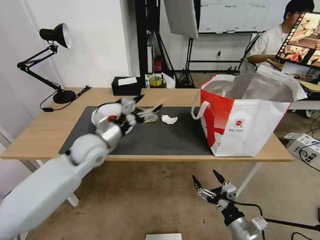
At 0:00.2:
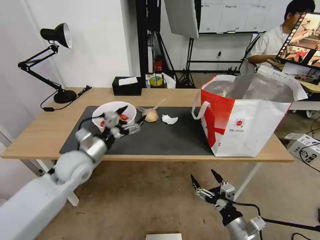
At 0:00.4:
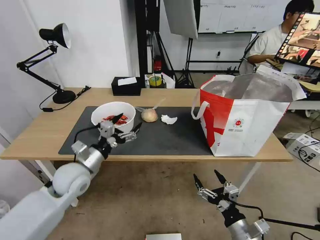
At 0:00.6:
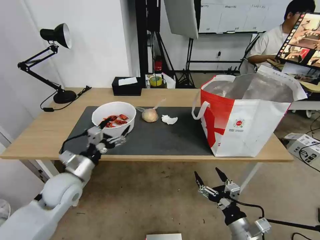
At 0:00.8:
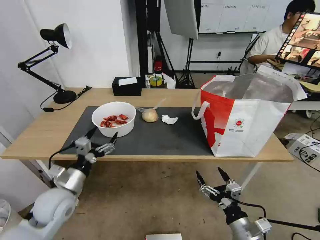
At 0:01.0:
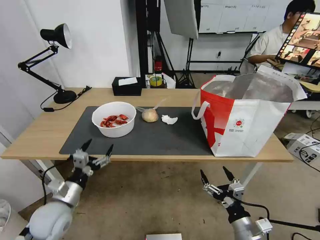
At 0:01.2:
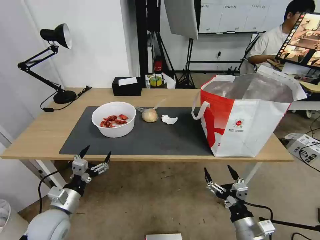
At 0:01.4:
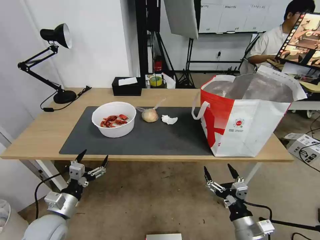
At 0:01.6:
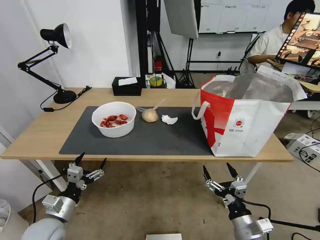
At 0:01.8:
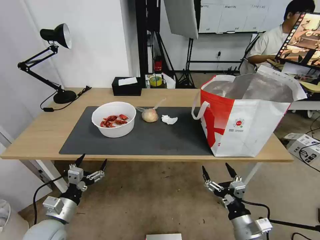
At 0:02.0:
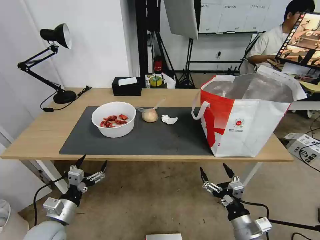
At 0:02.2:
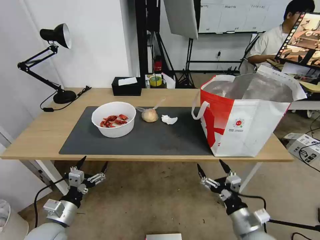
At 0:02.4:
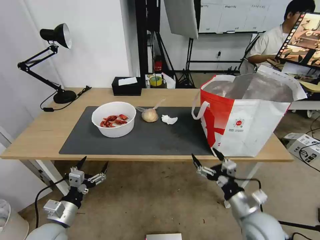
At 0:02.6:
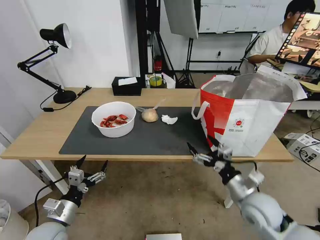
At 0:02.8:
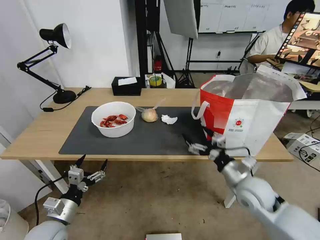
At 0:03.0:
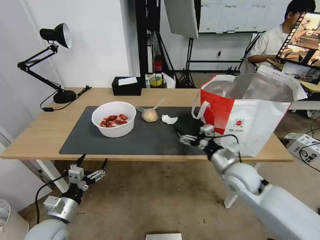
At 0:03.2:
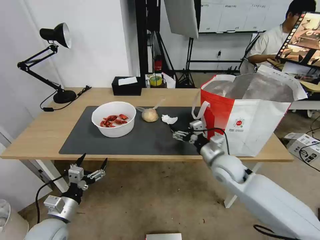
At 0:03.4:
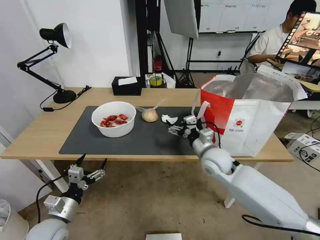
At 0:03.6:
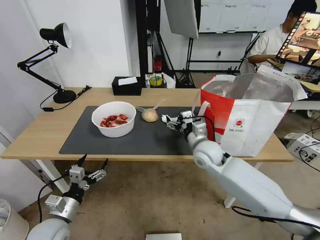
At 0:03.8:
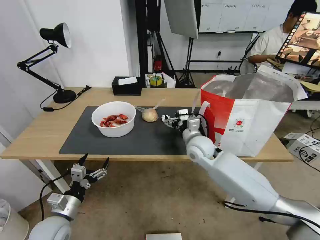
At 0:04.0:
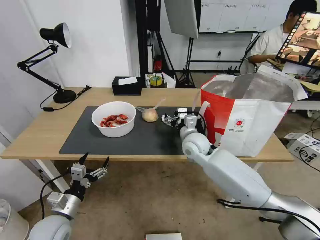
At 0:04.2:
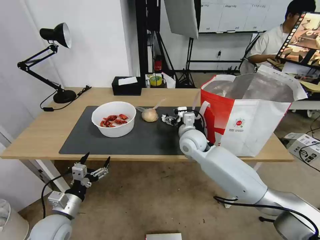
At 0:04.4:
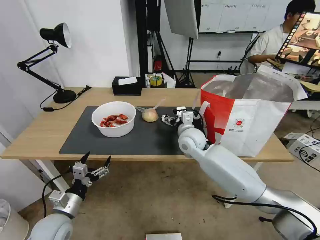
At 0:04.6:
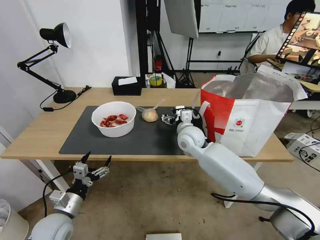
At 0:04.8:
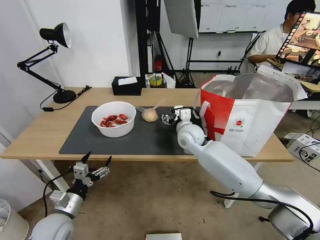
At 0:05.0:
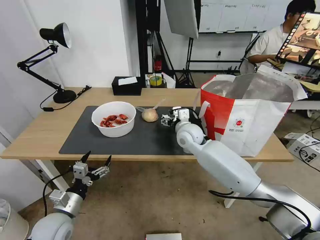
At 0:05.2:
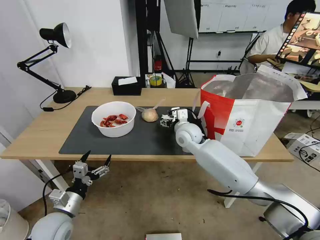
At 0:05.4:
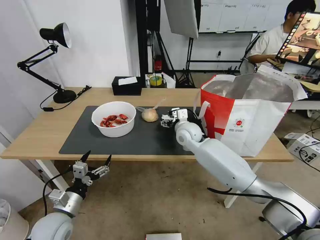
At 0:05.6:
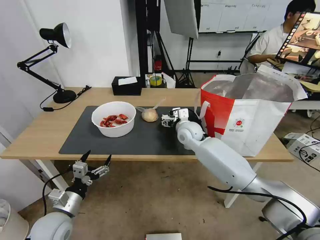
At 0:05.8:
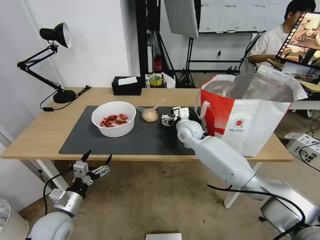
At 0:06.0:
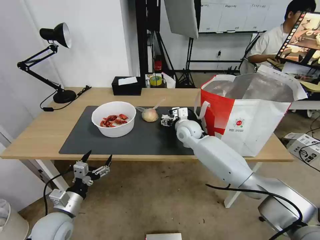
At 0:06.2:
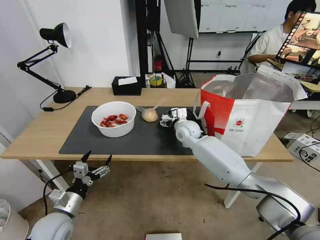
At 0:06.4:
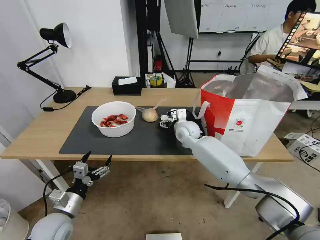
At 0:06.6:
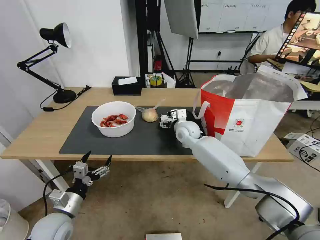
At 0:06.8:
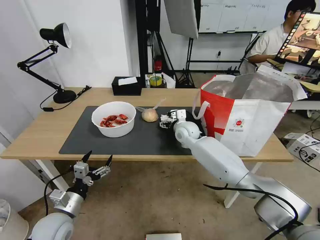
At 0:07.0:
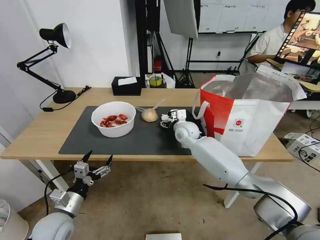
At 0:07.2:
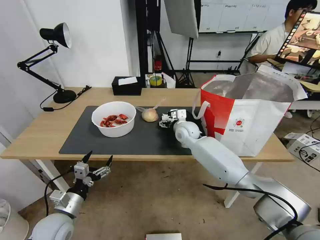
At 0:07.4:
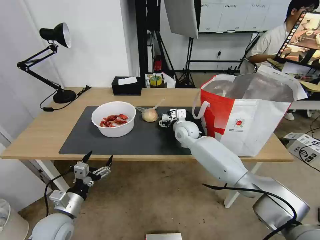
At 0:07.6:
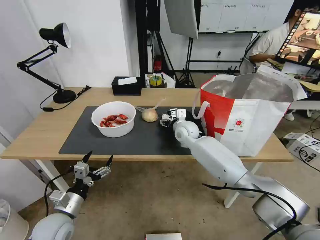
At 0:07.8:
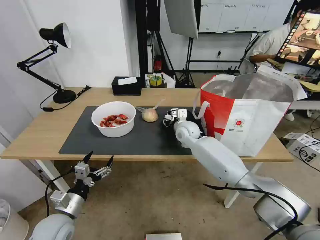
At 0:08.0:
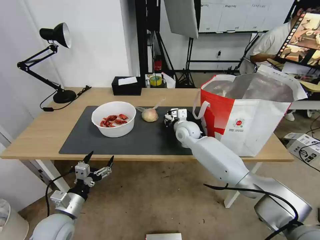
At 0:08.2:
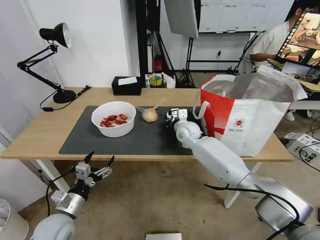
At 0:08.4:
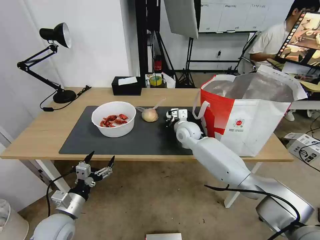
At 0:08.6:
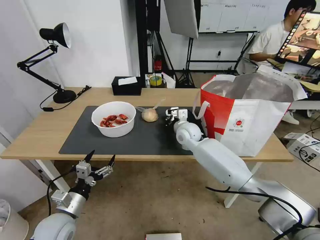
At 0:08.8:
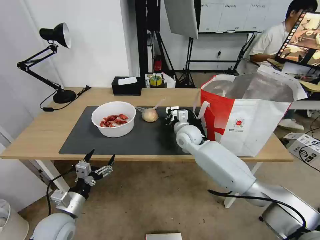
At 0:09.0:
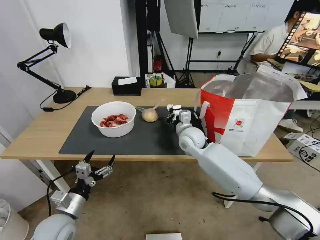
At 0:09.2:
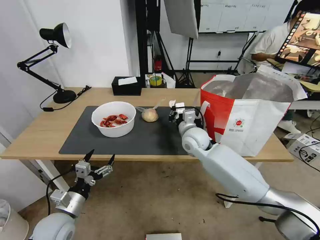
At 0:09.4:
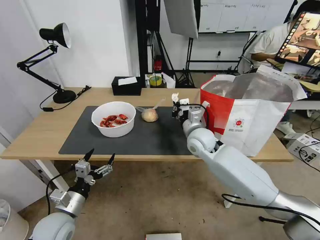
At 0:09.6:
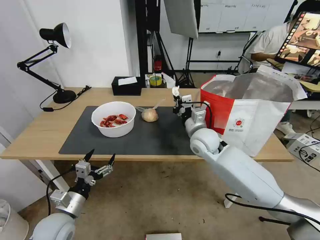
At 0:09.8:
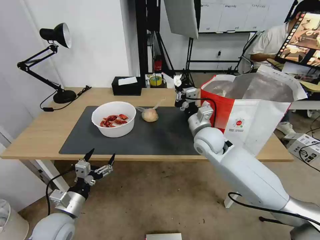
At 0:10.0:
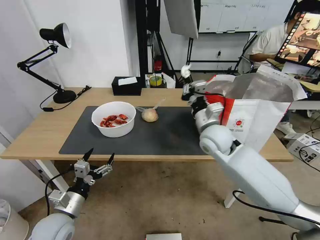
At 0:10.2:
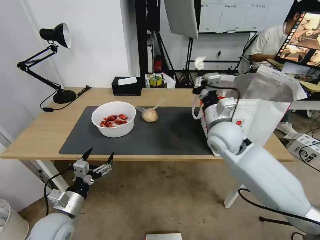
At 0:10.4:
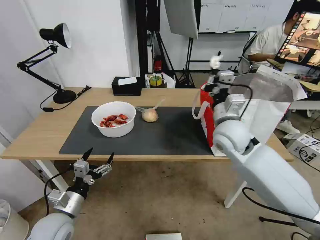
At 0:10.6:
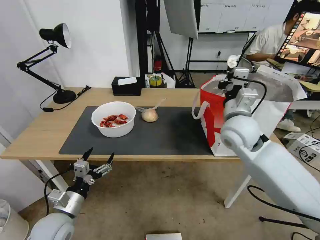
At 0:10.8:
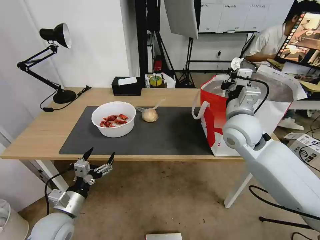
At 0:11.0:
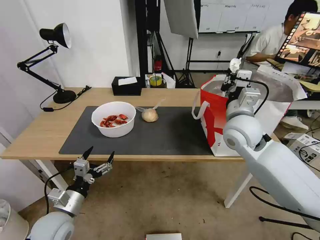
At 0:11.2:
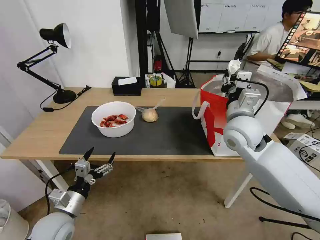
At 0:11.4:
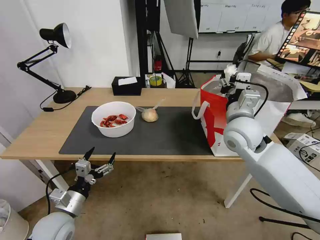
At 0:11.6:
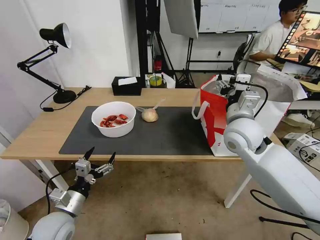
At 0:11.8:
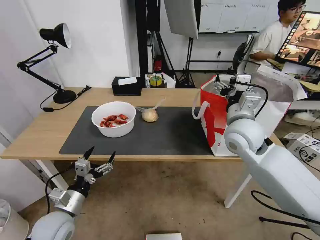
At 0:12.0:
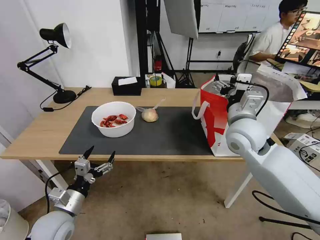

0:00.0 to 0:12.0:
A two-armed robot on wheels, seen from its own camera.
Task of the whole recording: Pick up the trash from the table and place it into the takeout bag.
0:00.0 to 0:01.6: The left gripper shifts roughly 25 cm backward, downward and to the left.
0:01.6 to 0:03.0: The right gripper moves forward and upward, approximately 20 cm.
0:03.0 to 0:04.4: The right gripper moves to the left and forward, some 20 cm.
0:04.4 to 0:06.0: The right gripper goes some 5 cm forward.
0:06.0 to 0:07.6: There are only small adjustments of the grippers.
0:07.6 to 0:09.0: The right gripper moves backward, approximately 5 cm, and closes its fingers.
0:09.0 to 0:10.4: The right gripper travels upward, to the right and backward by about 15 cm.
0:10.4 to 0:12.0: The right gripper opens up.

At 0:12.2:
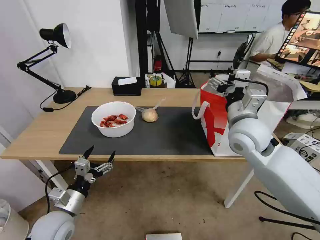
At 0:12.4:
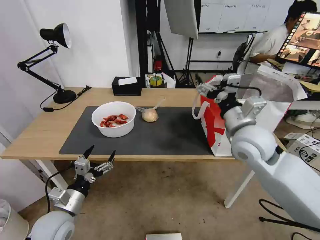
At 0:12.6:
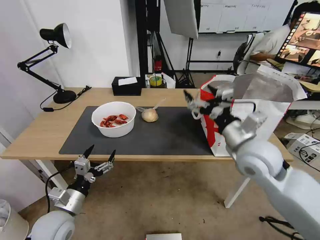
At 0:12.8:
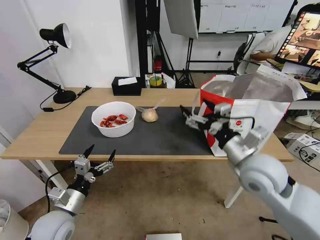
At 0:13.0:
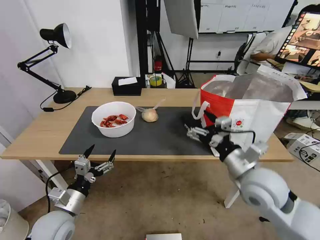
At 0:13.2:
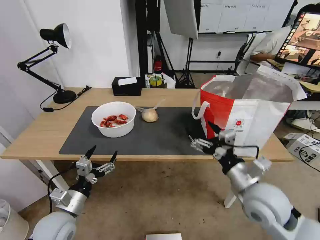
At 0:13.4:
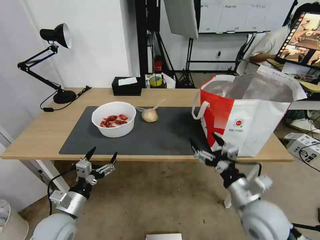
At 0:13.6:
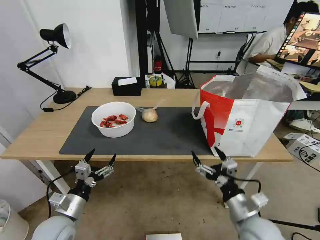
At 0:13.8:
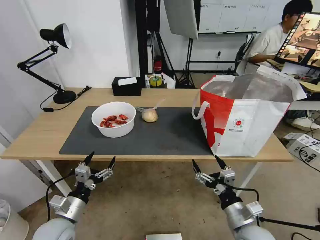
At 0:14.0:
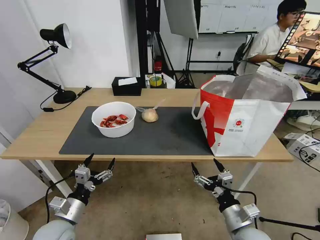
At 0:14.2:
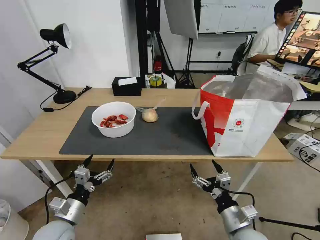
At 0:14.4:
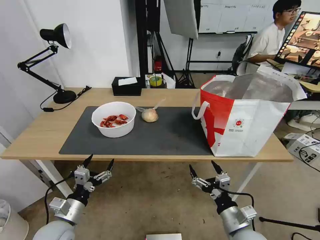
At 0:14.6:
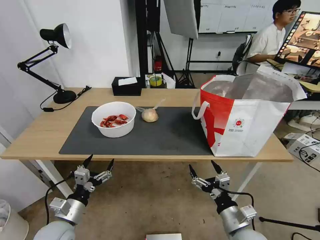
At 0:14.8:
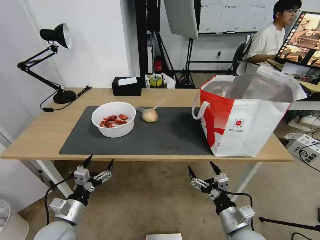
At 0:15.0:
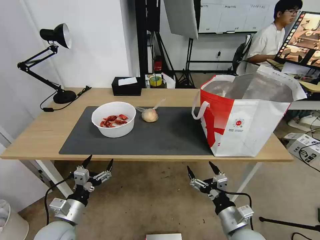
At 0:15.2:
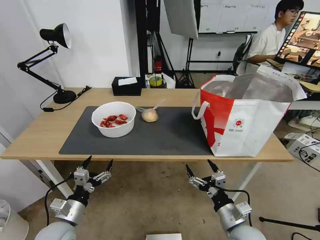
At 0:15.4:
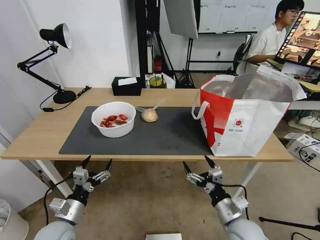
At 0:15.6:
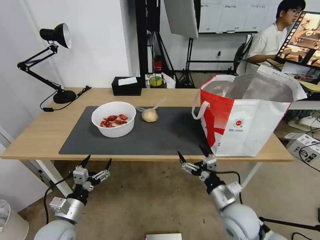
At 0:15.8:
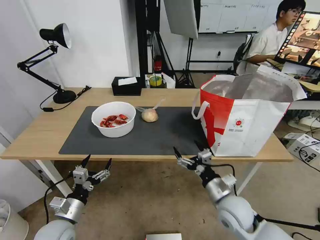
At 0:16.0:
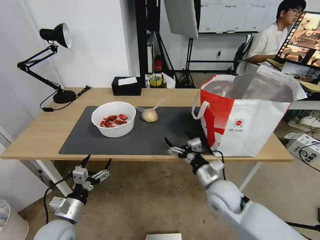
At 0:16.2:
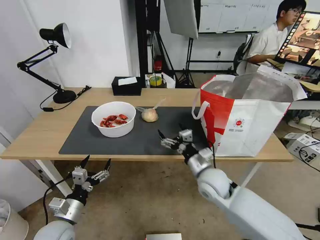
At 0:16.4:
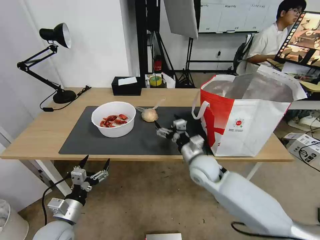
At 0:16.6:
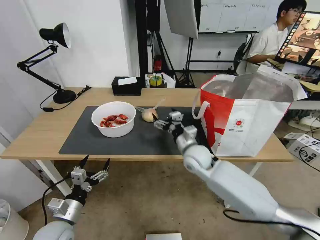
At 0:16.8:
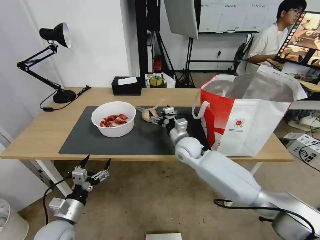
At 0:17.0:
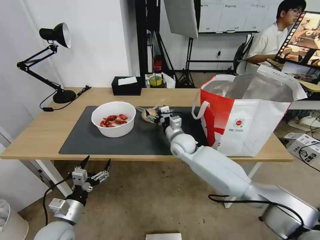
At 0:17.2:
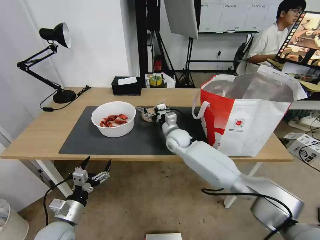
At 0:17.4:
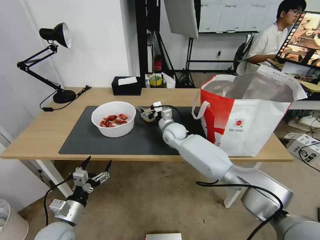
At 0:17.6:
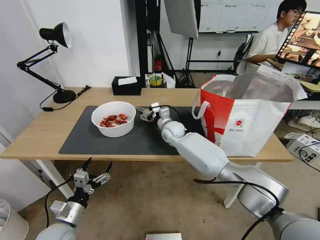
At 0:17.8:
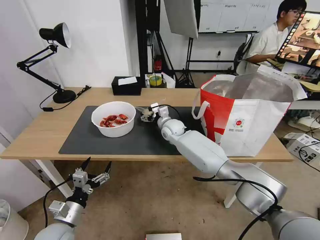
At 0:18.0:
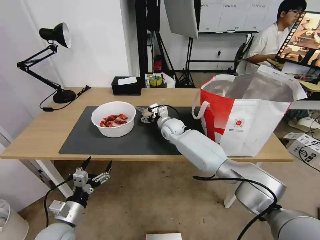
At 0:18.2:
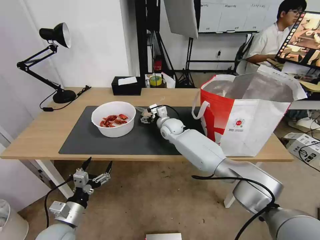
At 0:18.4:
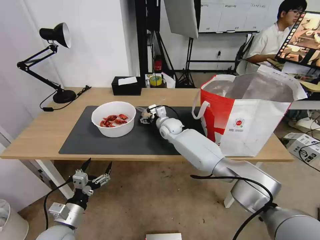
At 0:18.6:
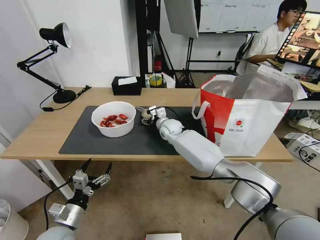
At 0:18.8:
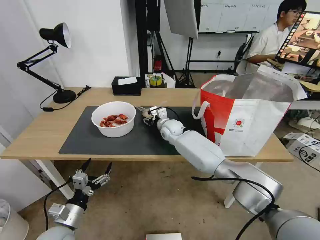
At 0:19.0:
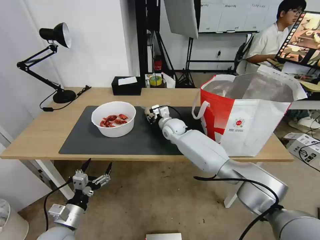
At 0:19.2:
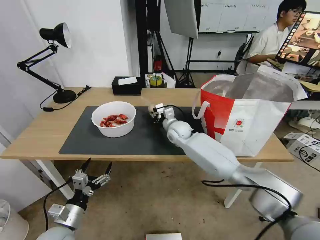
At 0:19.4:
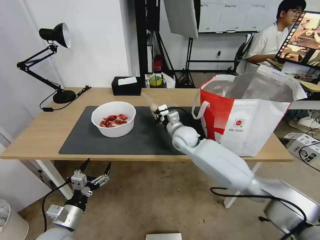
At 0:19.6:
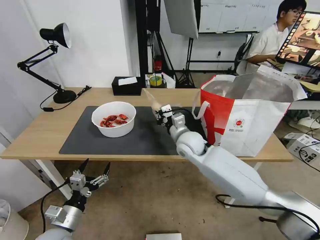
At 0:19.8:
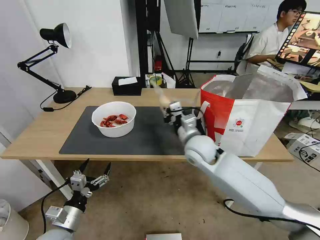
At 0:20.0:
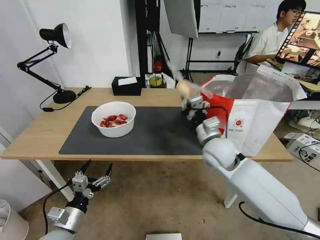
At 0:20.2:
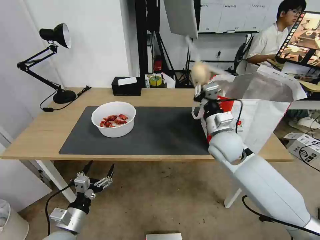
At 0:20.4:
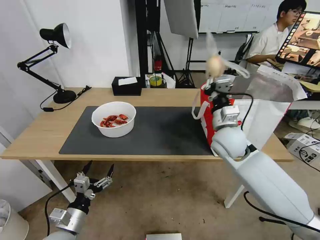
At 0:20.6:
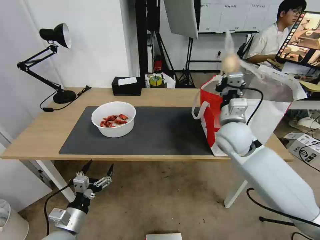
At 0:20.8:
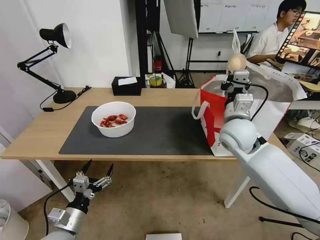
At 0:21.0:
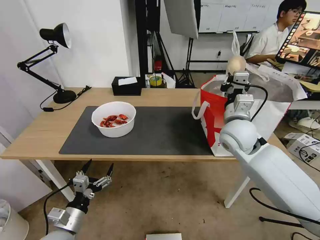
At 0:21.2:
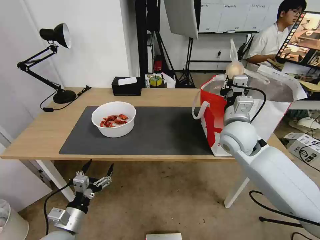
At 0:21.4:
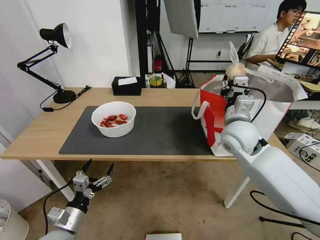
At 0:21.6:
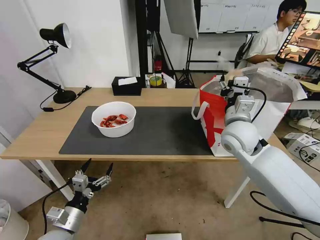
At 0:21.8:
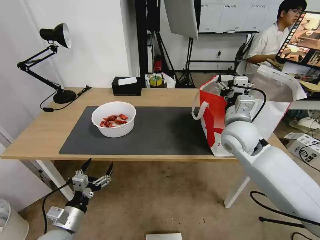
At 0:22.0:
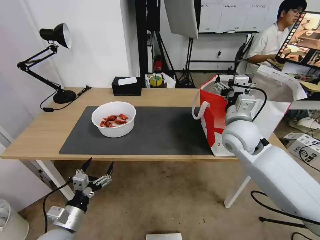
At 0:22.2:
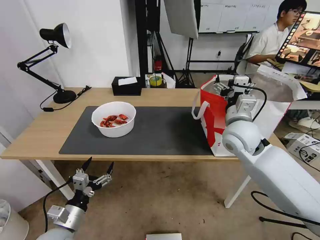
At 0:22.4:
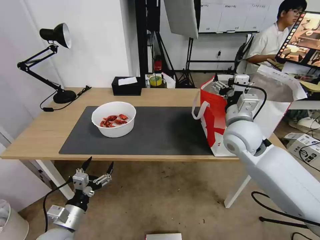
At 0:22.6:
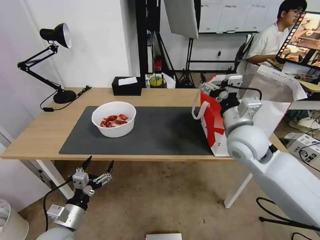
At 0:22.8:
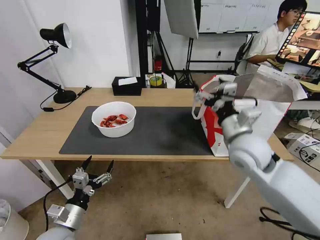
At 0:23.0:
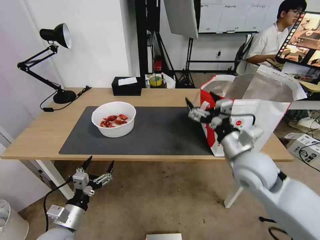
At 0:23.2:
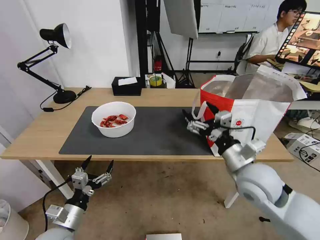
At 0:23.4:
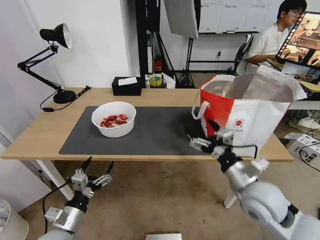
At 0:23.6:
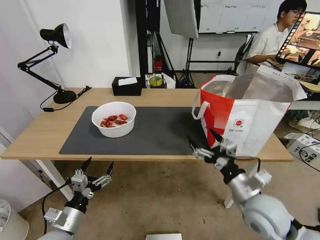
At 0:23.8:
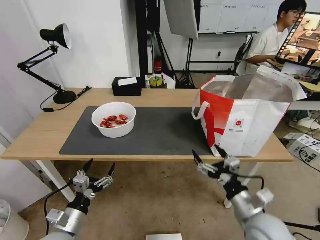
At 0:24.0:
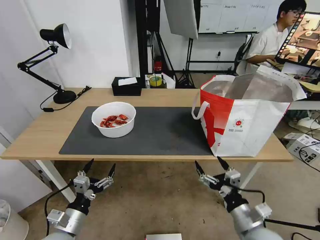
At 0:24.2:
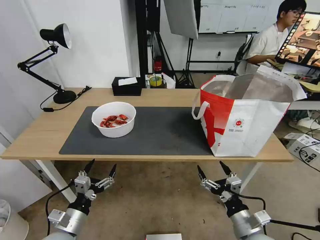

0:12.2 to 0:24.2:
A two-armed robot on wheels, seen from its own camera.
Task of the whole recording: Pick up the trash from the table and place it into the takeout bag.
0:12.2 to 0:13.8: The right gripper goes about 30 cm downward and backward.
0:13.8 to 0:15.2: The grippers move only a little.
0:15.2 to 0:16.6: The right gripper shifts some 25 cm forward and to the left.
0:16.6 to 0:18.2: The right gripper travels forward and to the left by about 20 cm.
0:18.2 to 0:19.8: The right gripper shifts roughly 20 cm backward, upward and to the right, and closes its fingers.
0:19.8 to 0:21.2: The right gripper moves to the right and upward, some 10 cm.
0:21.2 to 0:22.6: The right gripper opens.
0:22.6 to 0:24.2: The right gripper is displaced backward and downward by some 30 cm.
